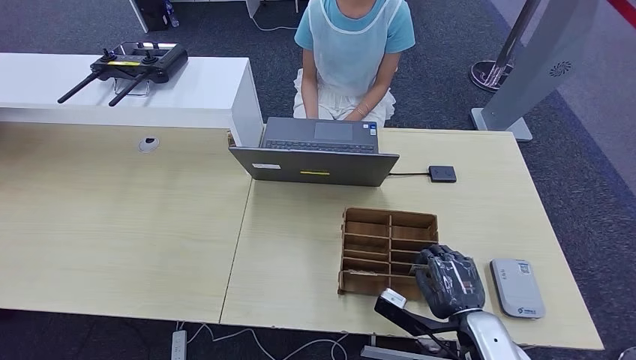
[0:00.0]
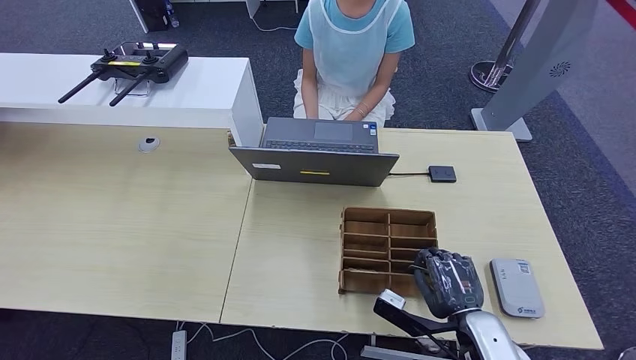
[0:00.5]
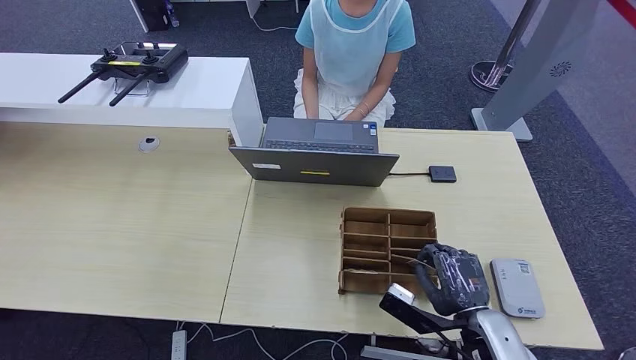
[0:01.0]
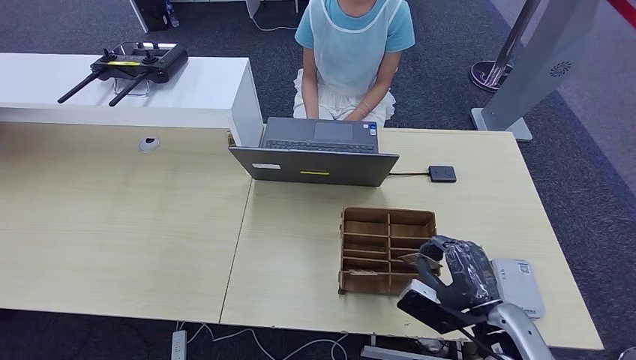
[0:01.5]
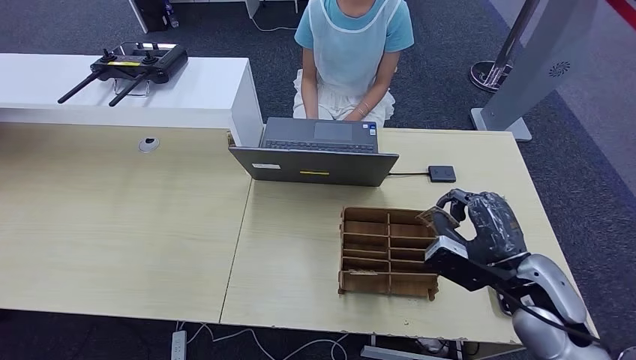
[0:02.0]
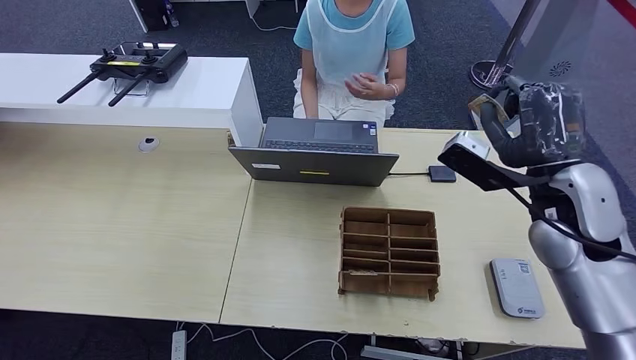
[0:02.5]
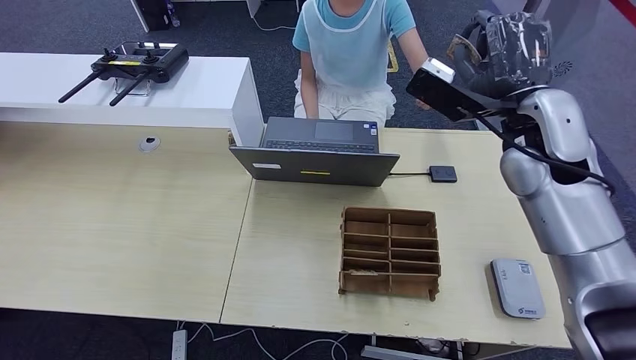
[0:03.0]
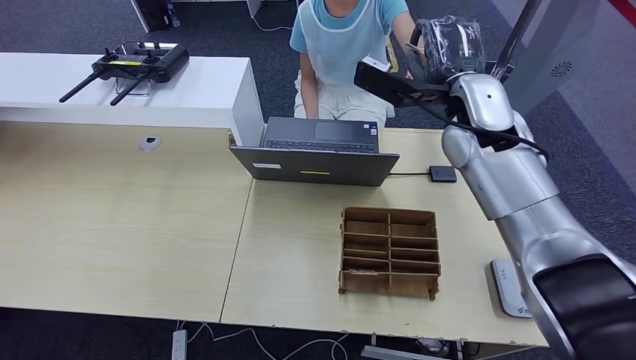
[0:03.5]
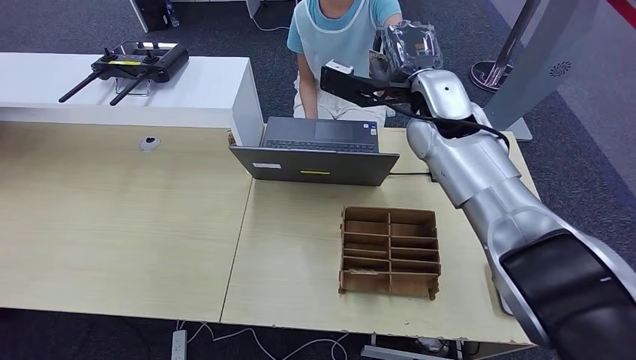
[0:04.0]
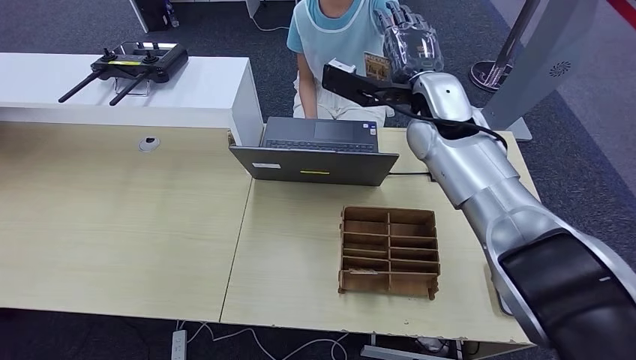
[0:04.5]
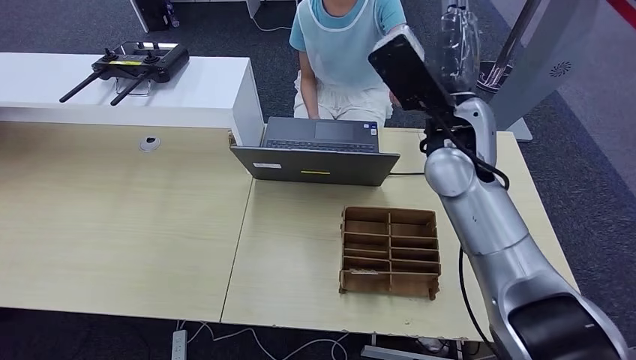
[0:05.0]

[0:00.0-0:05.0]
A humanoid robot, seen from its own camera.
Step, 0:00.0 to 0:02.5: Pick up the room key from the key card box.
Step, 0:03.0 to 0:05.0: Hand the room key to the person.
0:00.0 to 0:02.5: The right hand heads upward and forward, covering about 25 cm.
